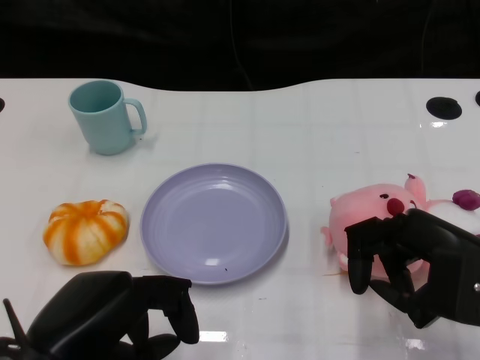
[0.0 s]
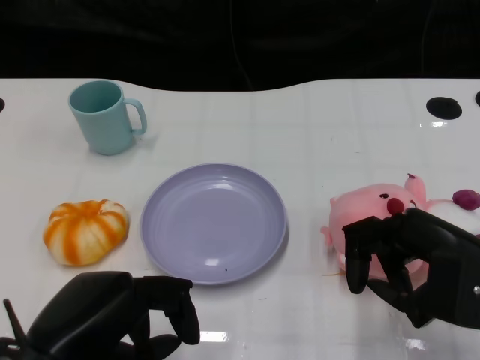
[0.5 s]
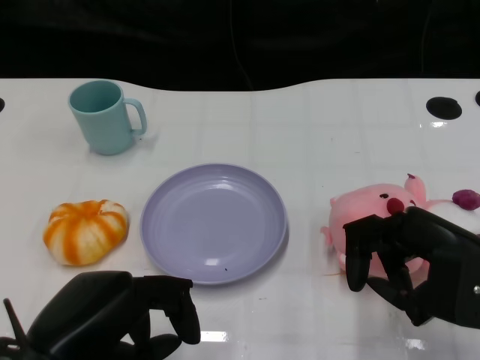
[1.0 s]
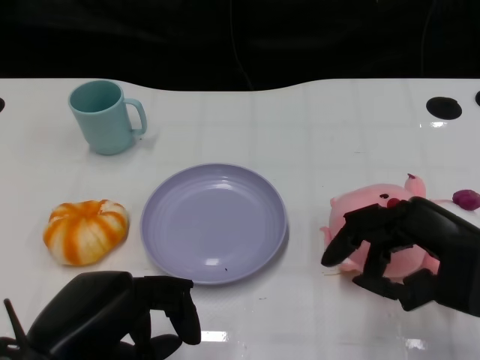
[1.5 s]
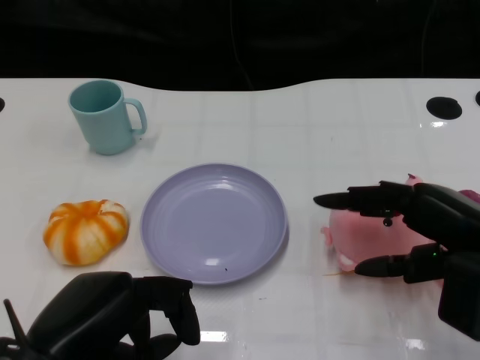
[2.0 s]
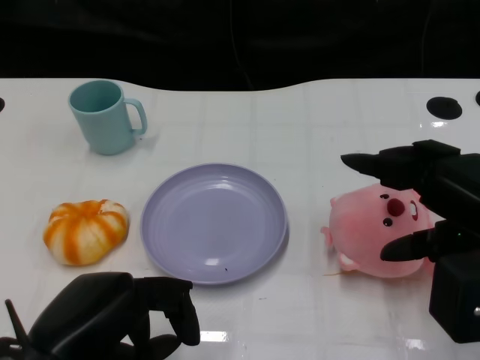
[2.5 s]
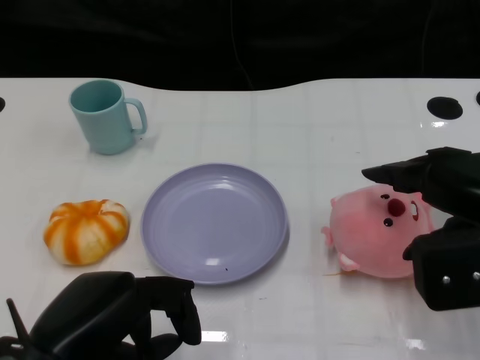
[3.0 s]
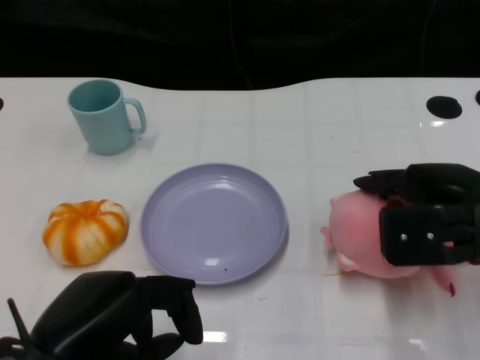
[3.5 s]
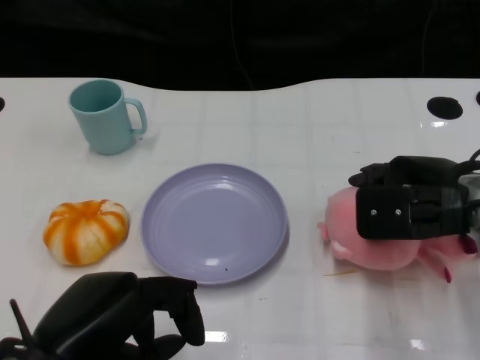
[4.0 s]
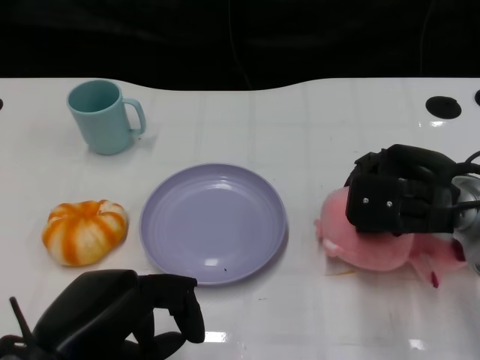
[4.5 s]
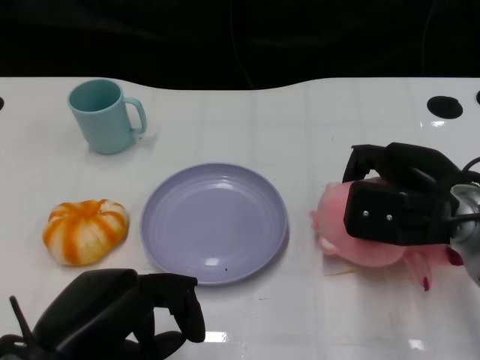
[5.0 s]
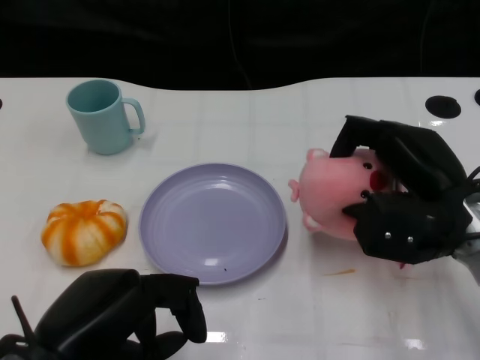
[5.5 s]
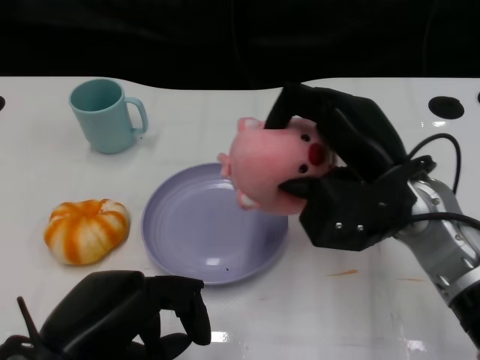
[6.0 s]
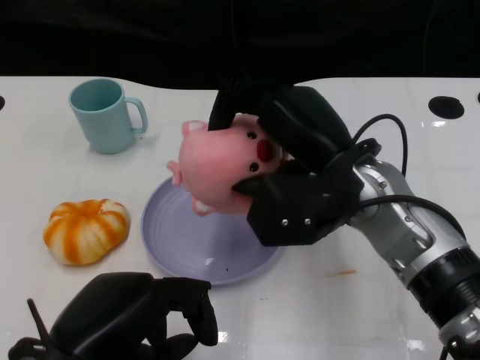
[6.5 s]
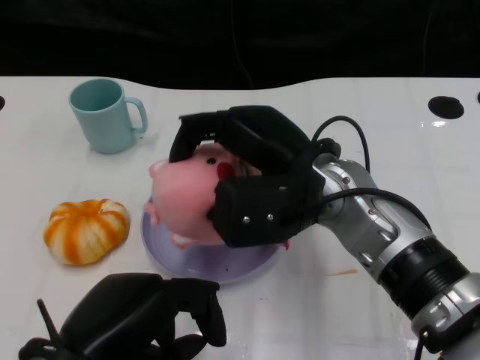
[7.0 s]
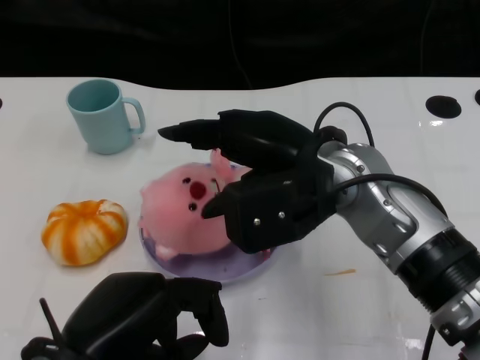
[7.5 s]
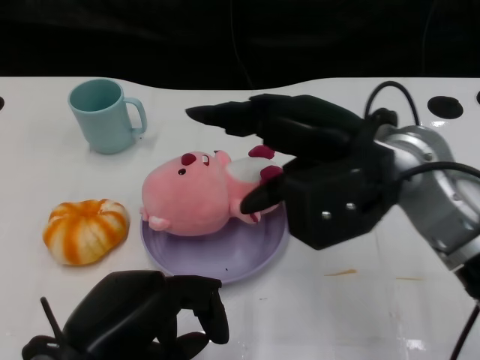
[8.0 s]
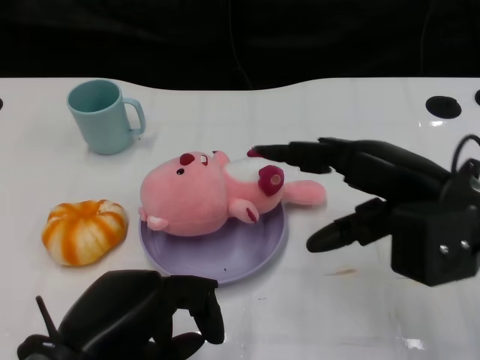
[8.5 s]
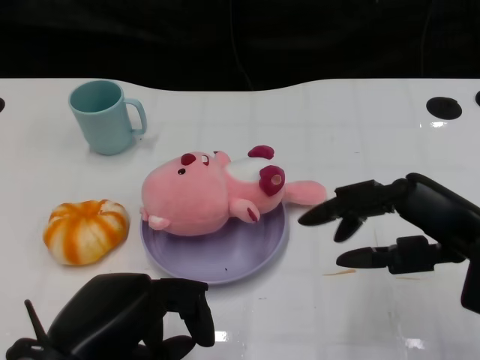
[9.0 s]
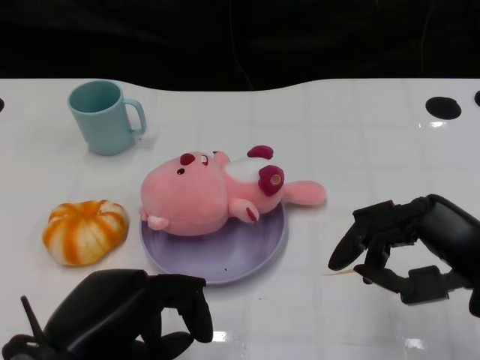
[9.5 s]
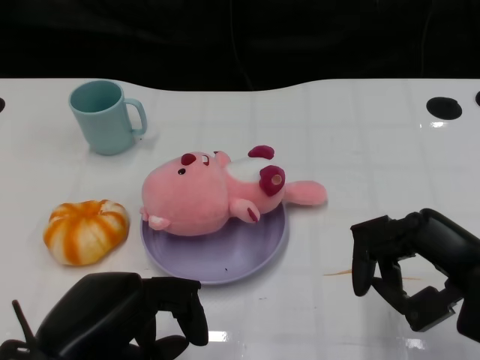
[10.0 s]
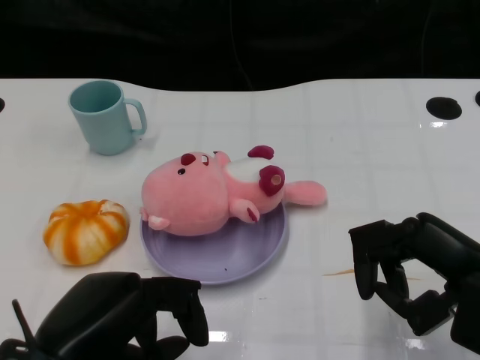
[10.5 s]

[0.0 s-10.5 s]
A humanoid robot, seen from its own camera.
Task of the whole recording: Pick up the doll on the other side of the plate and place it into the plate.
Step, 1.5 to 5.5 s: Grasp the pink doll with the right gripper.
Step, 6.0 to 7.5 s: Place the pink doll into the plate with the right gripper.
2.0 to 4.0 s: The right hand moves forward, some 10 cm.
4.0 to 6.5 s: The right hand travels to the left by about 10 cm.
6.5 to 8.5 s: The right hand heads to the right, covering approximately 10 cm.
8.5 to 10.5 s: The right hand goes some 5 cm backward.

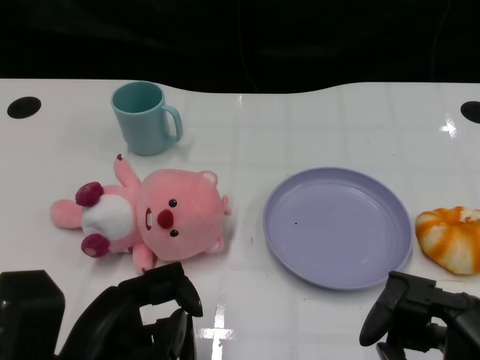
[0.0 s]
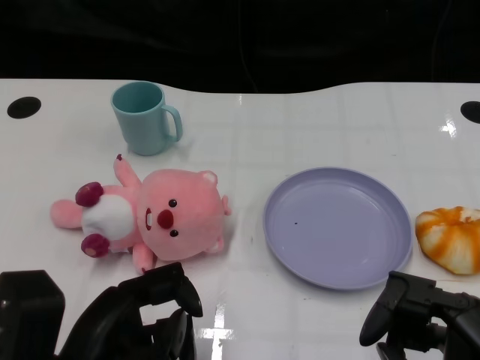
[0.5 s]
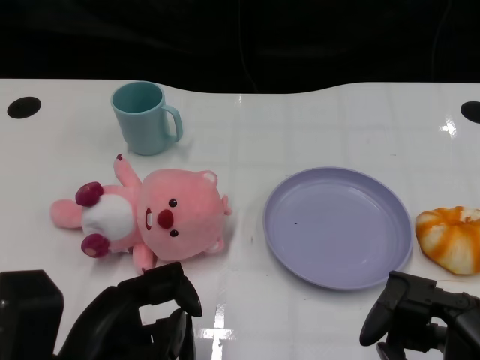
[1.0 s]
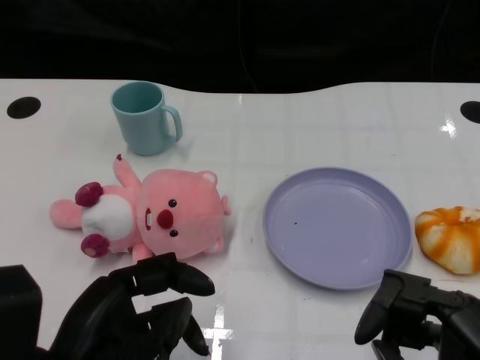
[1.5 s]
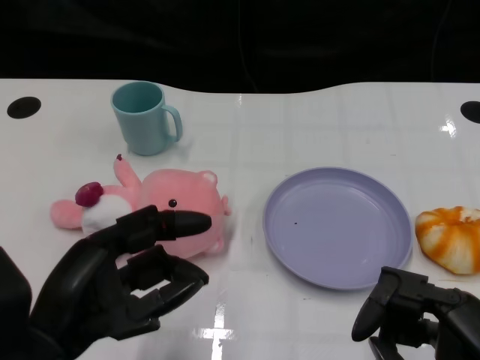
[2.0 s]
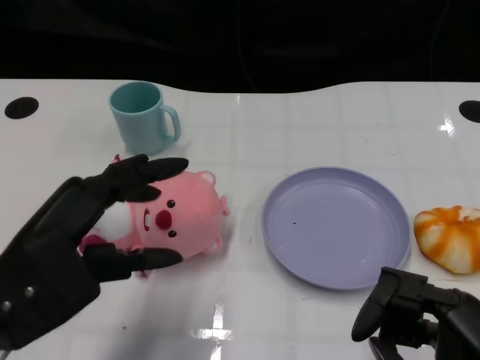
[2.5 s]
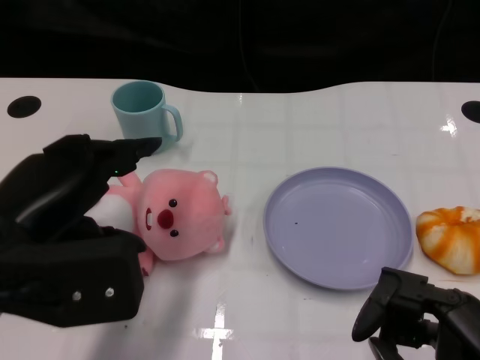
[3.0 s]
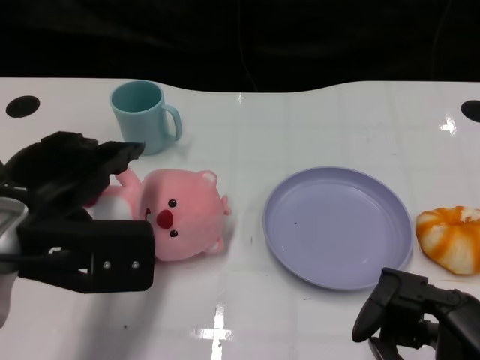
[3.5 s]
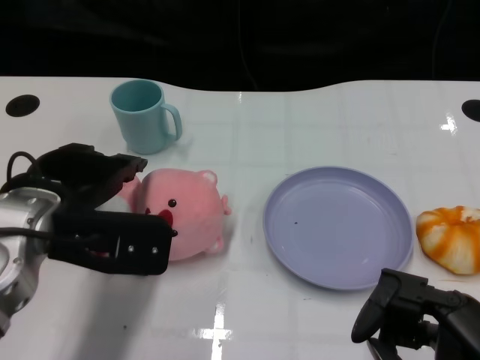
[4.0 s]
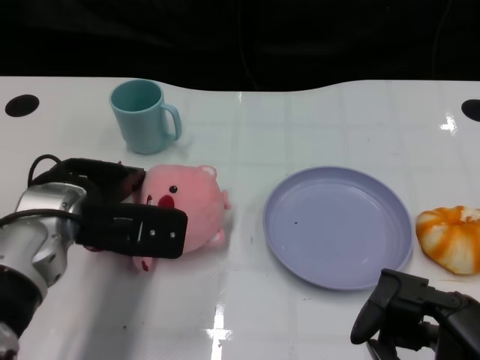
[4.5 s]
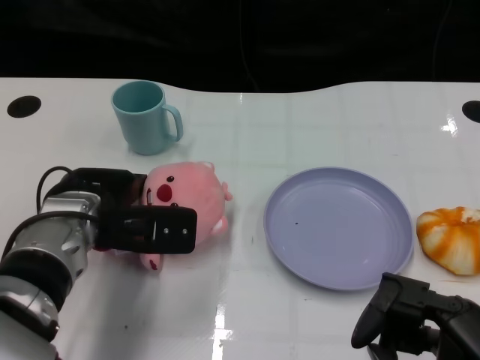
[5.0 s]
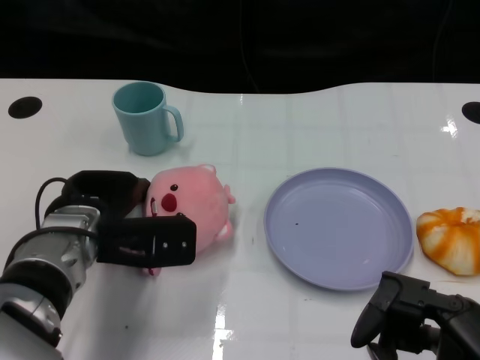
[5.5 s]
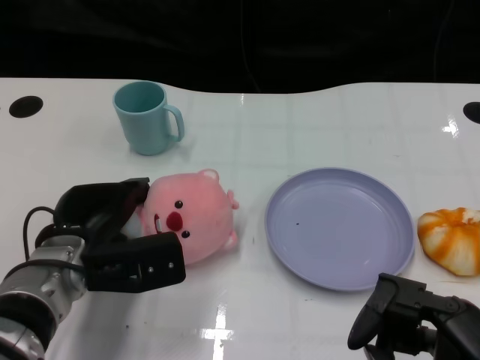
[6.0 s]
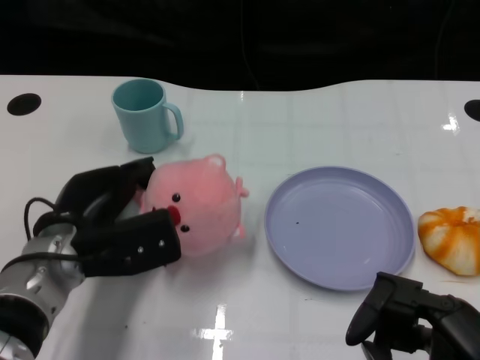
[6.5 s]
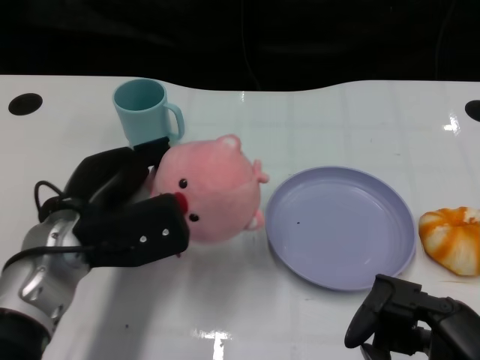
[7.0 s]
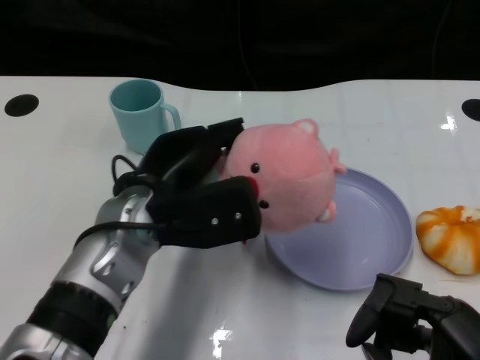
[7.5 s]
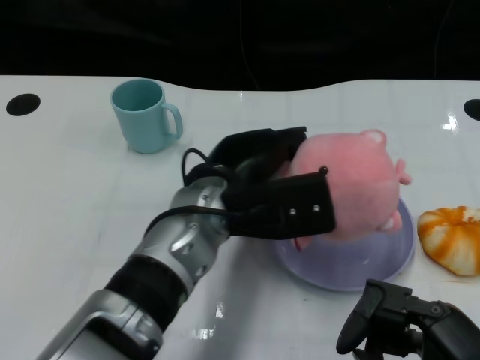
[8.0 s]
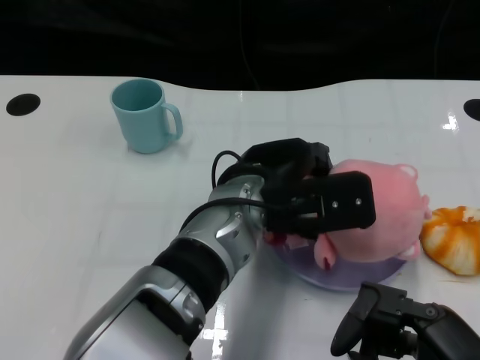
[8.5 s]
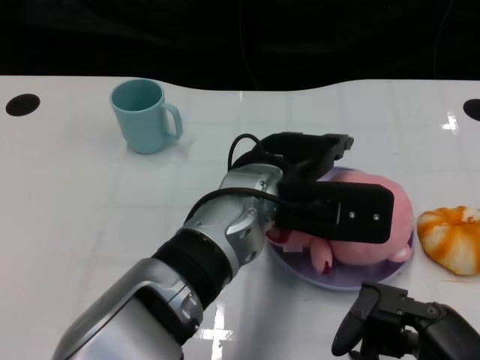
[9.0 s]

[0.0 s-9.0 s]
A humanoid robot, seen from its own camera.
Task of the whole recording: Pick up the doll on one side of the plate and place it into the plate.
Step, 1.5 to 6.0 s: Grasp the pink doll with the left gripper.
2.0 to 4.5 s: The left hand heads forward, covering about 15 cm.
7.0 to 9.0 s: The left hand moves to the right, roughly 20 cm.

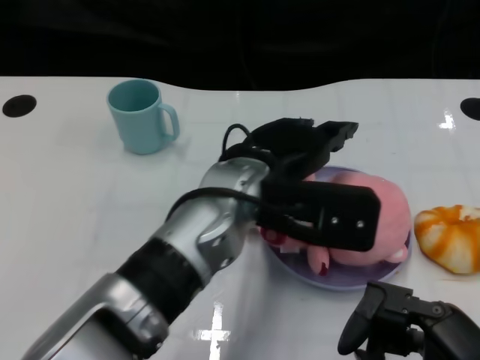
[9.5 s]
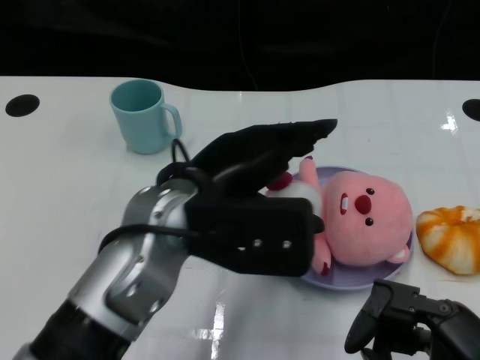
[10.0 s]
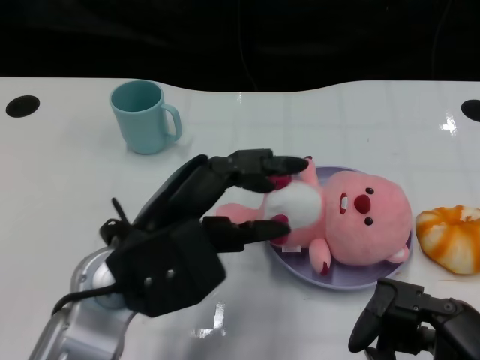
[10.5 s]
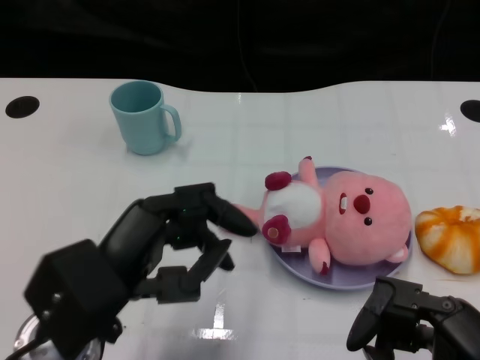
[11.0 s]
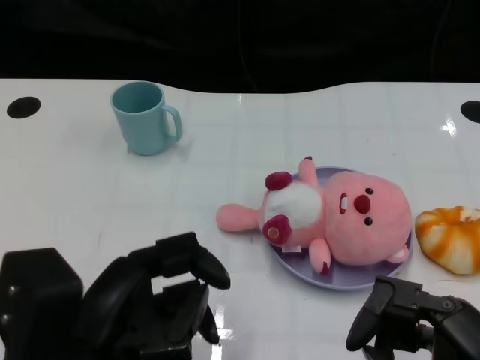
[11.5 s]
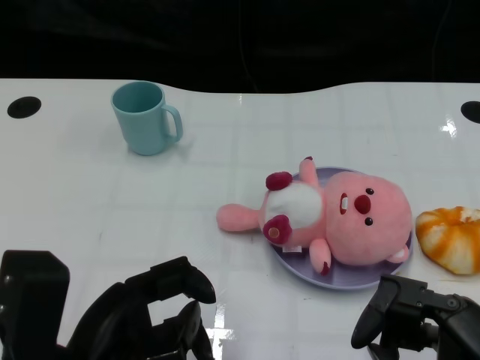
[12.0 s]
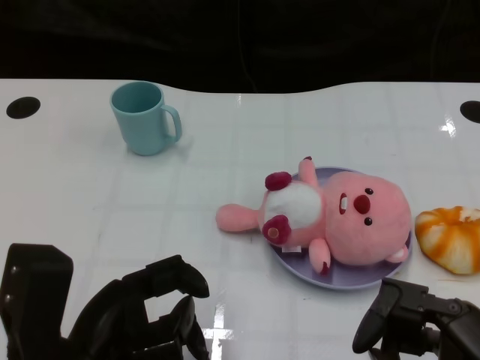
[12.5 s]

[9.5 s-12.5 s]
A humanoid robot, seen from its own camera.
Task of the whole recording: Pick up the doll on one side of the plate and place it into the plate.
9.5 to 11.0 s: The left hand moves to the left and backward, approximately 20 cm.

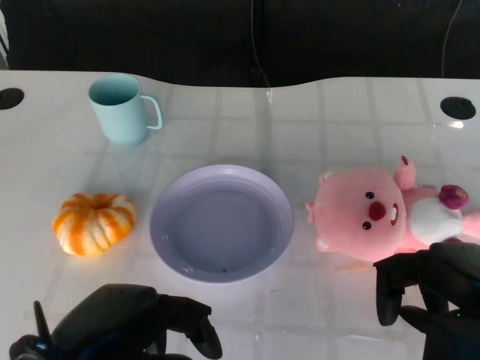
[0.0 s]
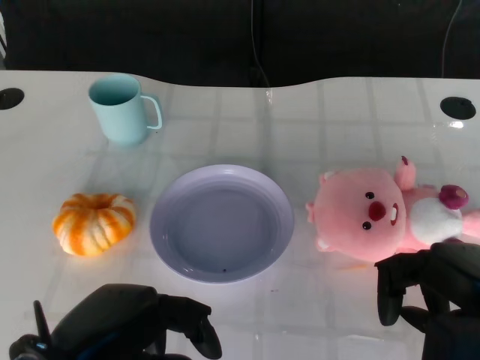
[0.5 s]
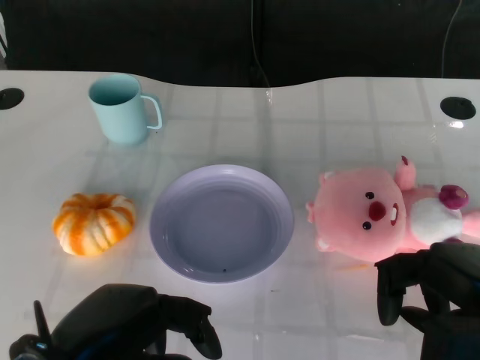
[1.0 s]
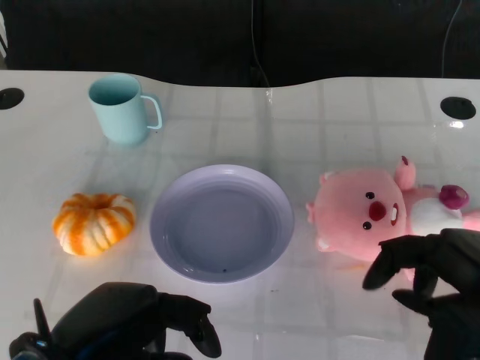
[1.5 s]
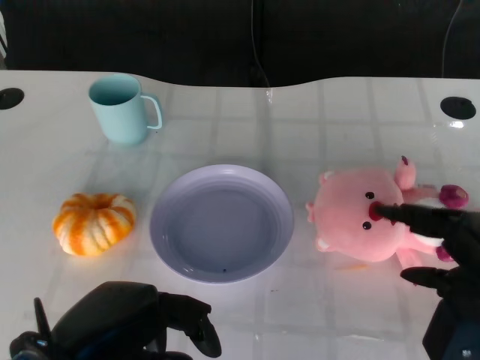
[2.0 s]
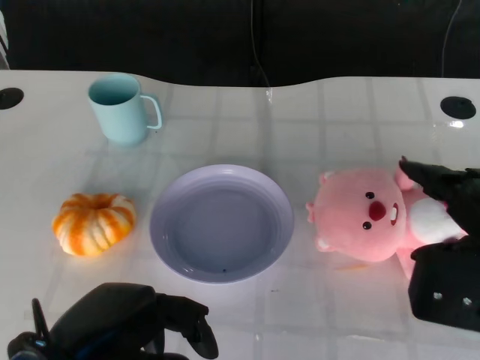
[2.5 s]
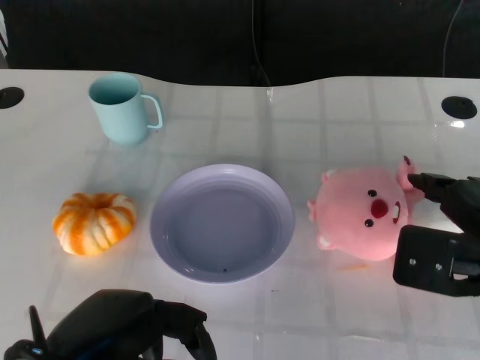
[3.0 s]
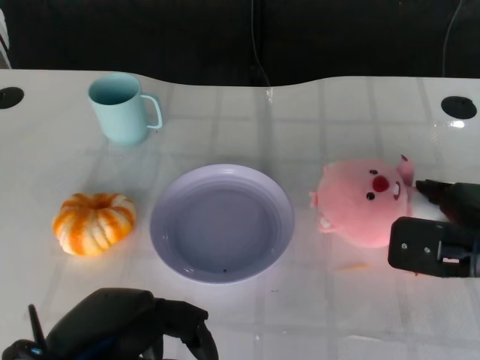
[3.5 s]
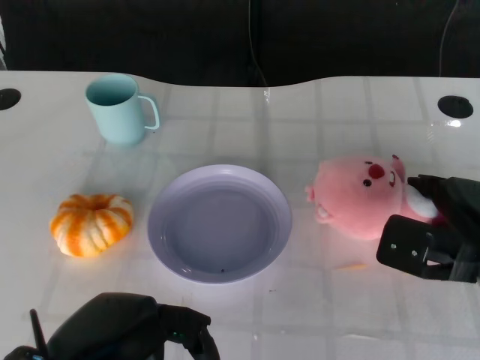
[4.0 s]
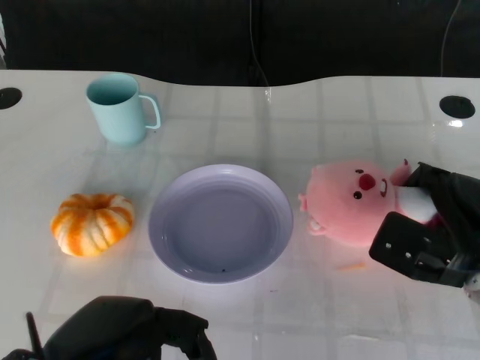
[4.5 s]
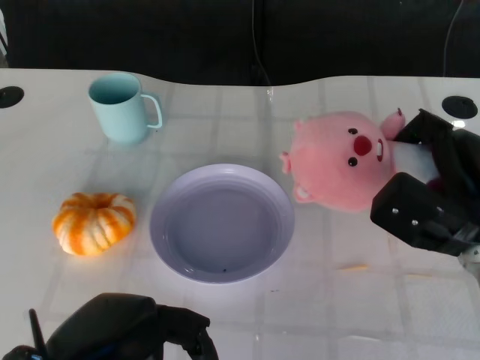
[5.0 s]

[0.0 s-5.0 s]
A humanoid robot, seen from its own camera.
Task of the whole recording: Pick up the doll on the other side of the plate and place it into the plate.
2.5 to 5.0 s: The right hand moves forward and downward, about 10 cm.
